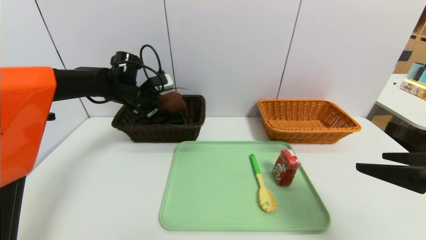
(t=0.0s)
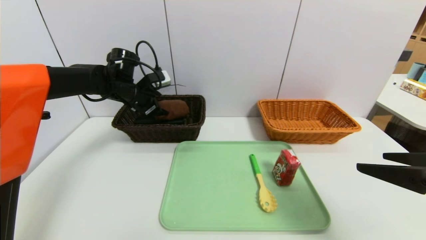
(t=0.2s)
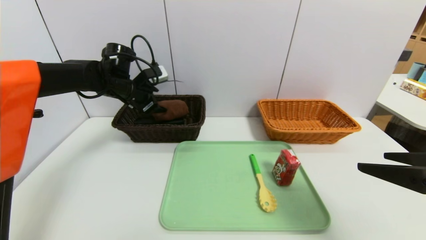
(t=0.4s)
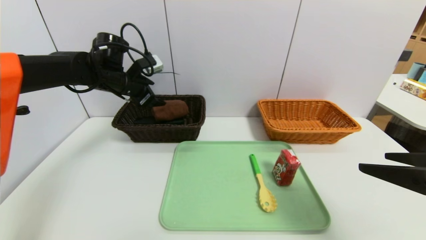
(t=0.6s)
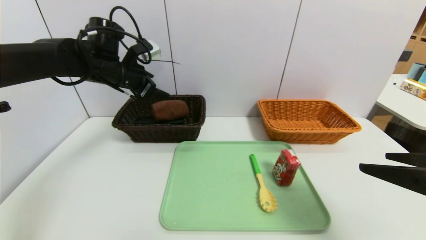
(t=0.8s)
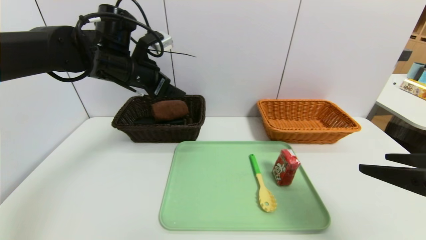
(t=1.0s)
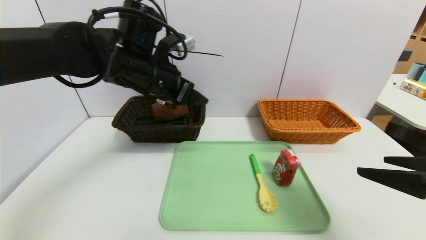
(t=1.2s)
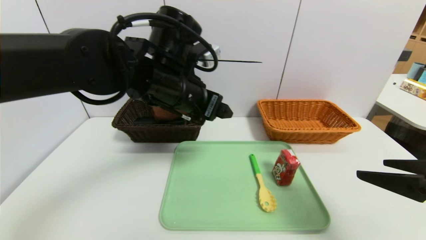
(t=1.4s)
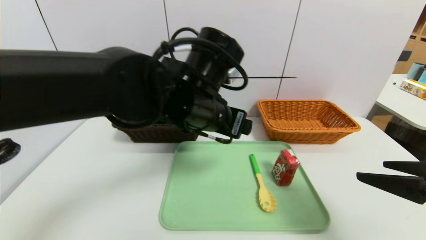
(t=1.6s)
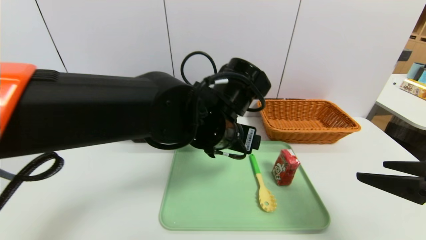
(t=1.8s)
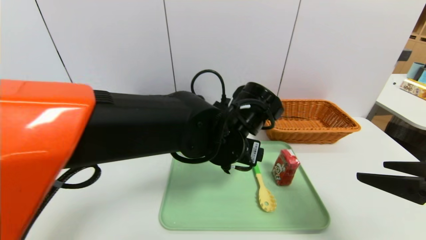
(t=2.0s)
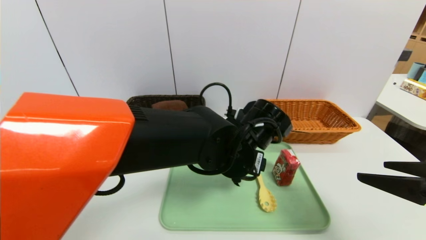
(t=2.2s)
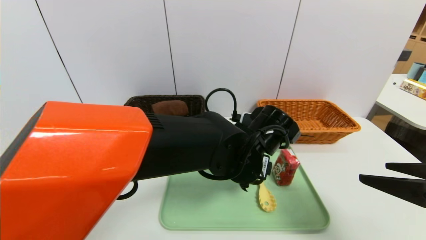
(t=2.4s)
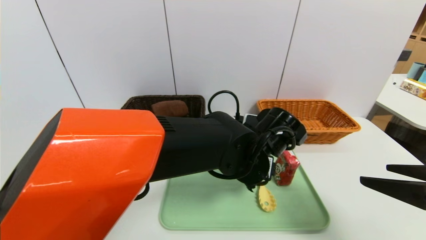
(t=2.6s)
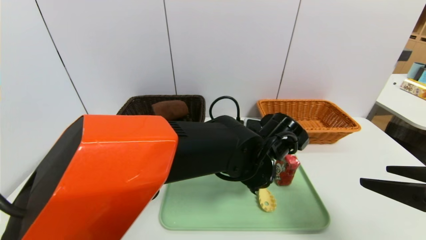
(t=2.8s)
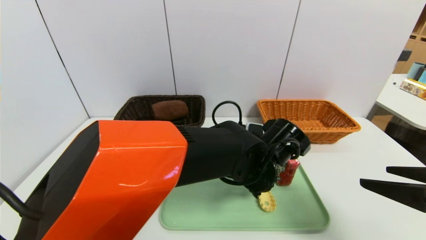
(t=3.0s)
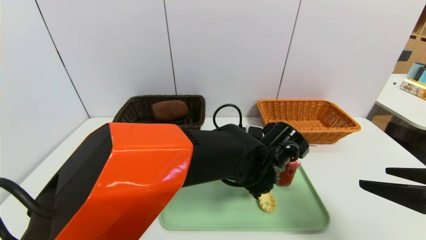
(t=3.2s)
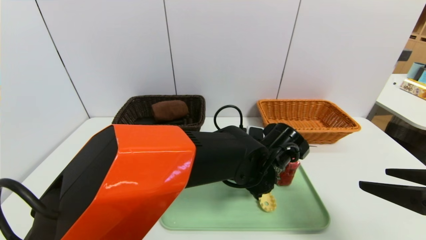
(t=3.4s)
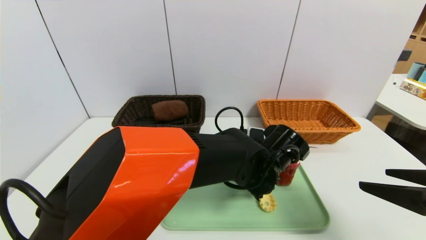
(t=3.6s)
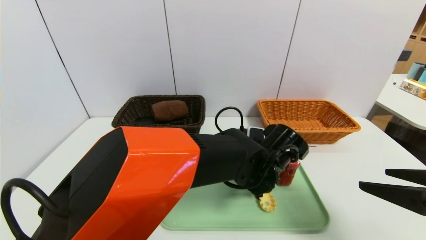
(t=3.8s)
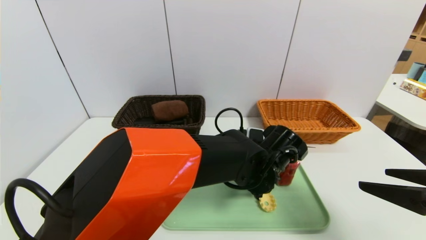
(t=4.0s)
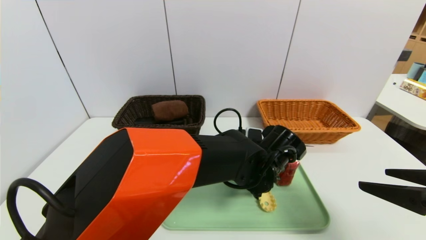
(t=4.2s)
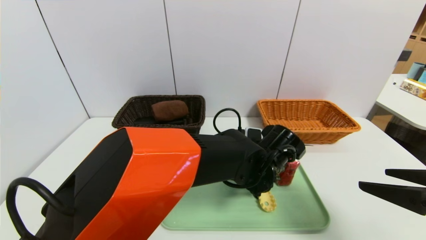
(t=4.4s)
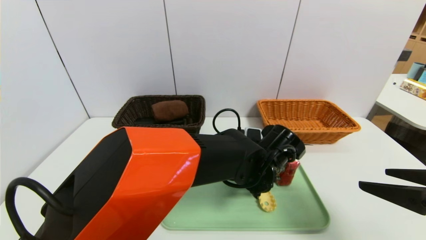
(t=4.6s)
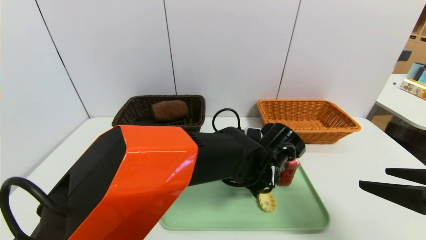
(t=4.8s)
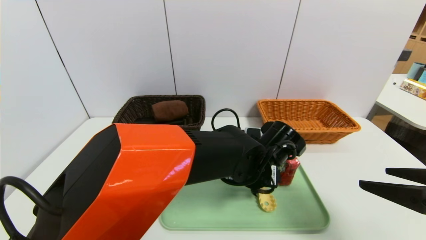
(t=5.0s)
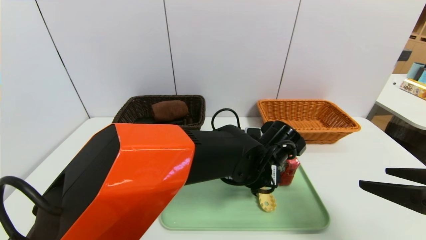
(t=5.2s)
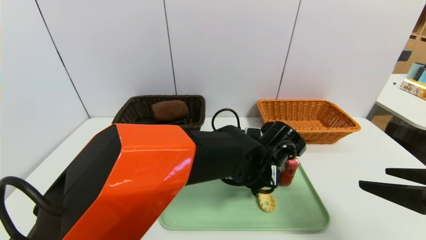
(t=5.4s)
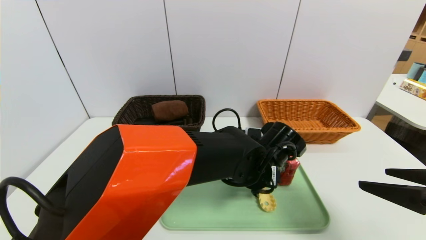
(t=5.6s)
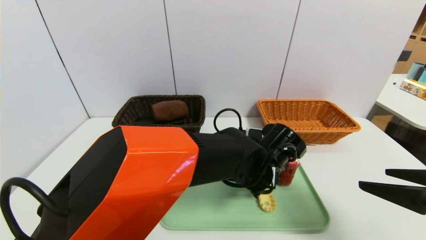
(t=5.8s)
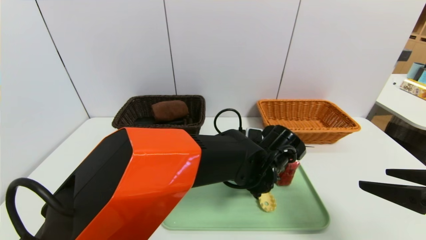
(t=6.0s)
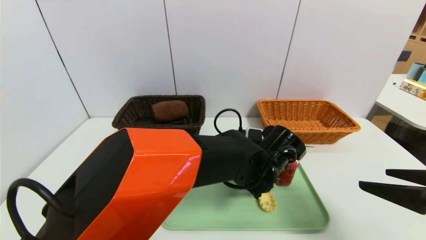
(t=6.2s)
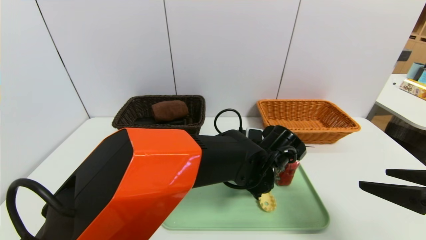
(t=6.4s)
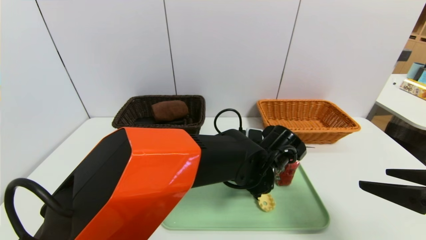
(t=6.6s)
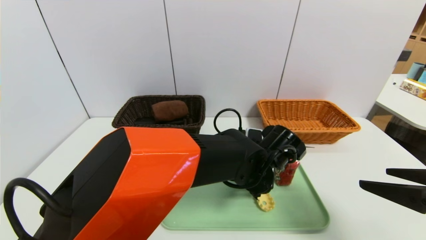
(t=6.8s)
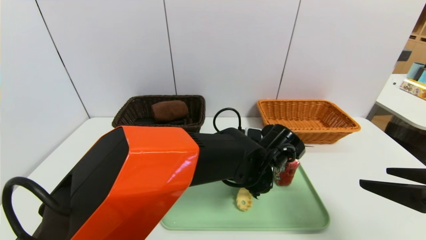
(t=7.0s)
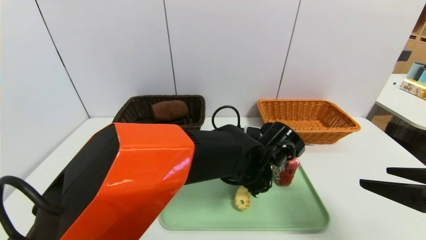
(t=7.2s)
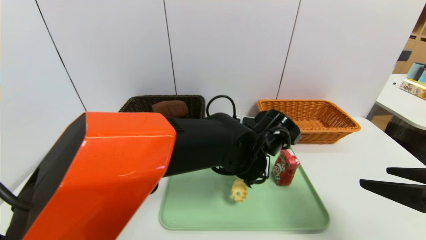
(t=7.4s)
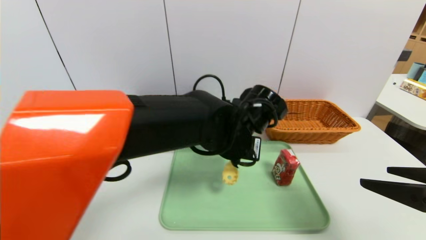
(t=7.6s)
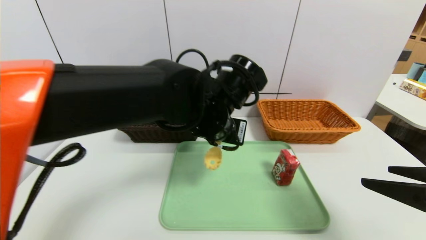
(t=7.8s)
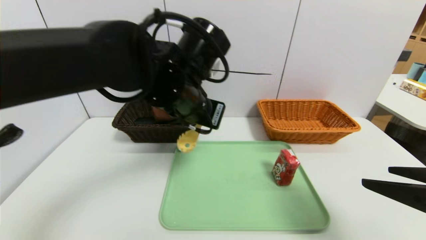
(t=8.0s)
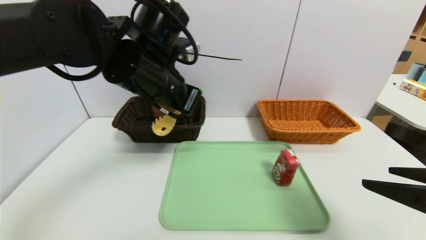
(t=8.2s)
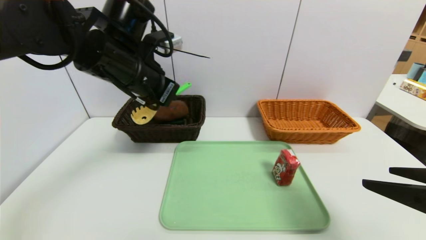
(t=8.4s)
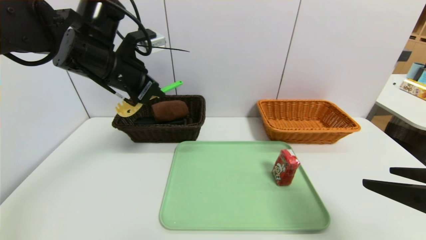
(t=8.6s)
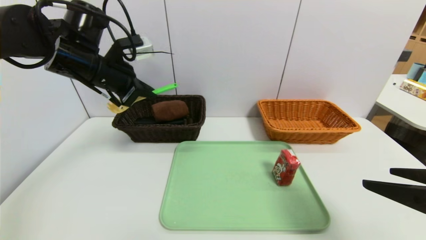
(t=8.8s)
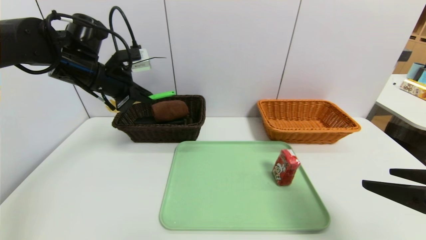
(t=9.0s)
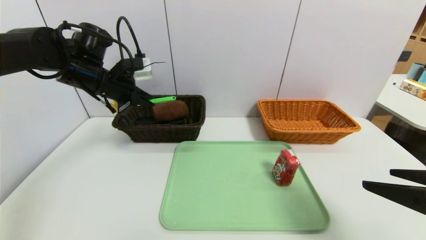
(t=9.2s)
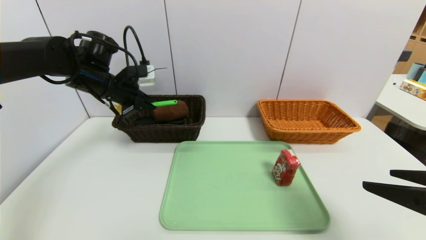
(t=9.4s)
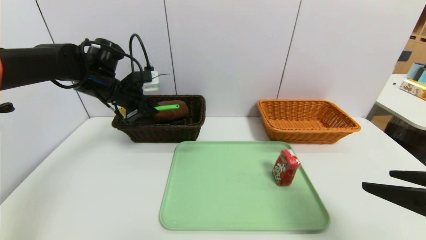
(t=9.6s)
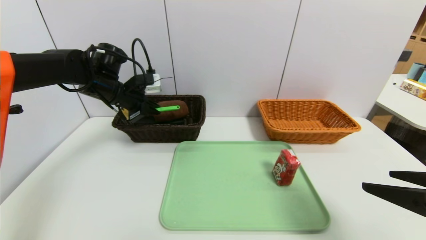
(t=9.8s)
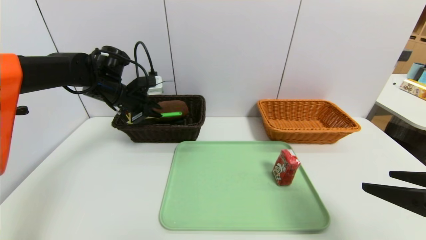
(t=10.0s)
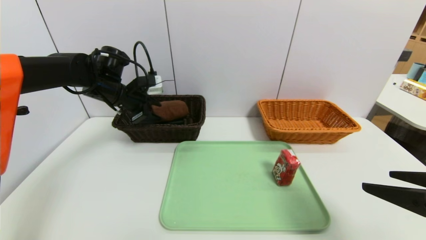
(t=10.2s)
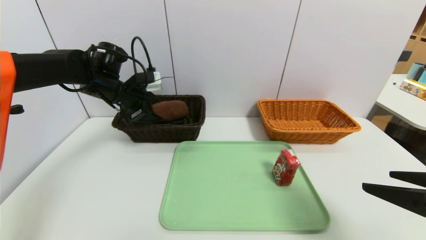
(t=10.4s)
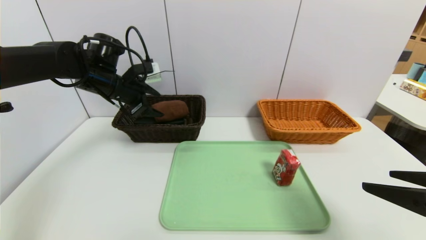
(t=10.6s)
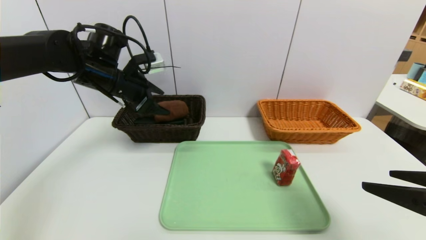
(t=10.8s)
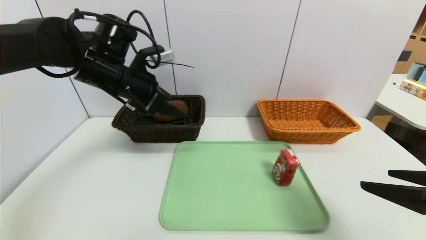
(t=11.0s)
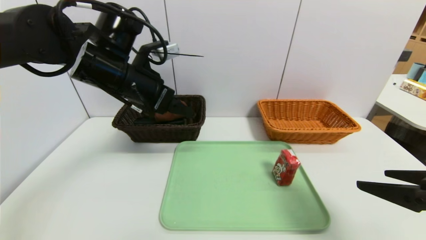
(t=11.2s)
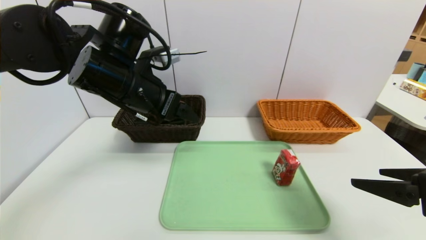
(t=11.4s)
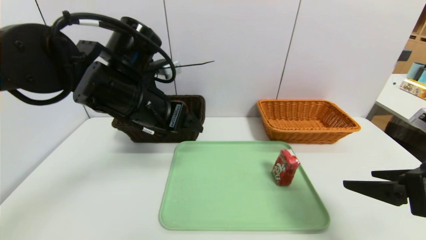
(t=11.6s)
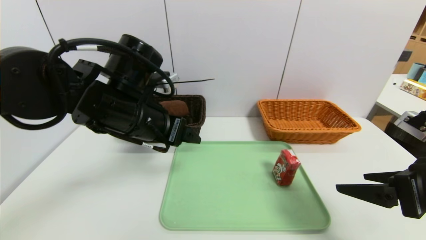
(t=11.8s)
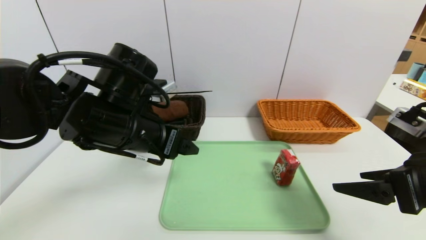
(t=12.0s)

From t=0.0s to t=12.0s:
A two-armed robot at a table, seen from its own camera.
Task of the whole recording: place the food in the right basket with the right gripper, and place the non food items in the left basket with the left gripper.
Step, from t=0.6s to t=10.6s: Grasp the back scratcher and put it in the left basket.
From t=0.0s to t=1.6s: The left gripper moves to the right and backward, some 25 cm.
From t=1.6s to t=3.0s: The left gripper shifts approximately 15 cm downward and to the right.
From t=3.0s to t=6.0s: The grippers make only small movements.
From t=6.0s to t=7.6s: The left gripper shifts about 5 cm upward, and closes up.
From t=7.6s to t=9.0s: The left gripper goes some 30 cm to the left.
From t=9.0s to t=10.4s: The left gripper travels downward and forward by some 5 cm, and opens its fingers.
From t=10.4s to t=12.0s: The left gripper is displaced backward and to the right by some 20 cm, and opens its fingers.

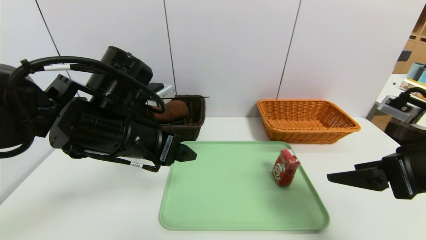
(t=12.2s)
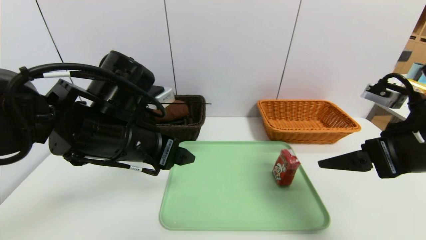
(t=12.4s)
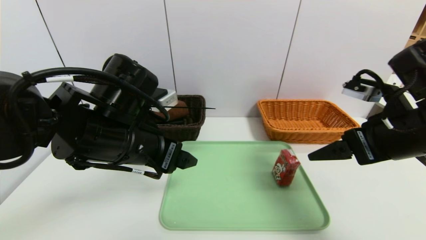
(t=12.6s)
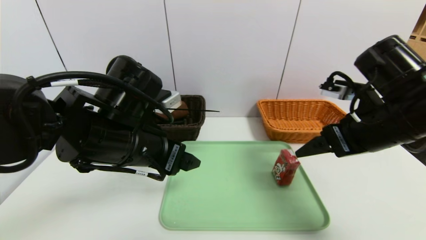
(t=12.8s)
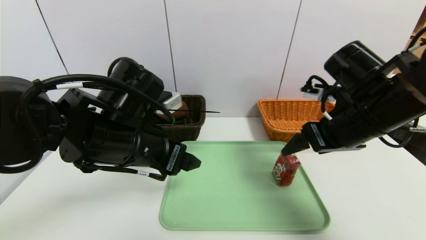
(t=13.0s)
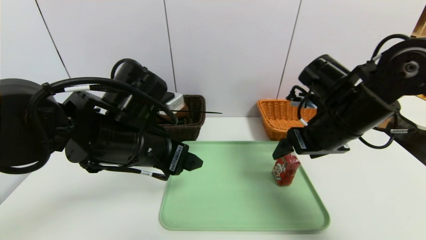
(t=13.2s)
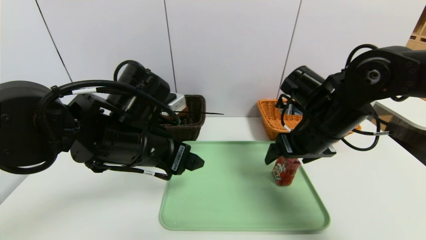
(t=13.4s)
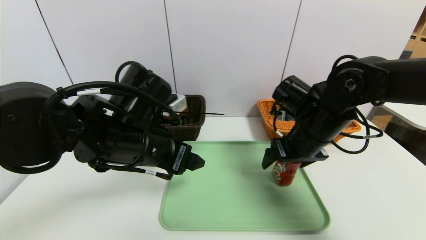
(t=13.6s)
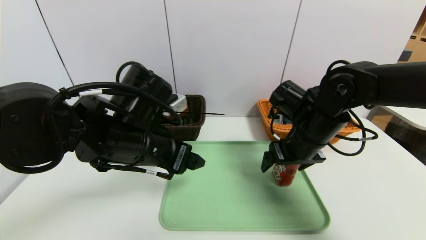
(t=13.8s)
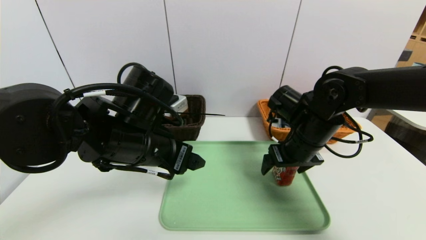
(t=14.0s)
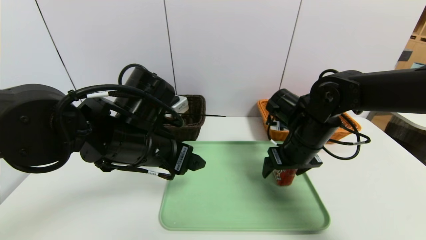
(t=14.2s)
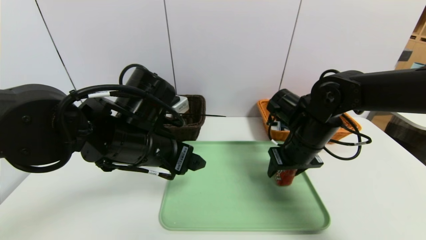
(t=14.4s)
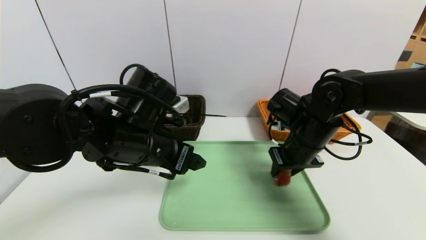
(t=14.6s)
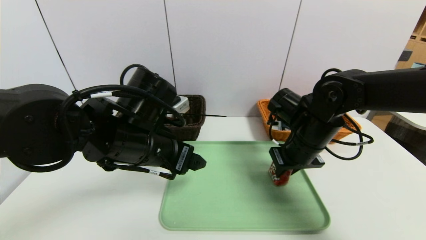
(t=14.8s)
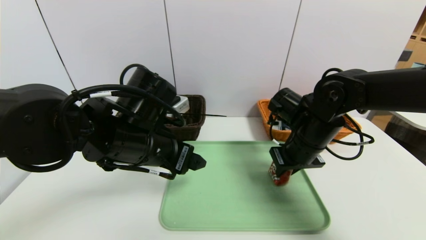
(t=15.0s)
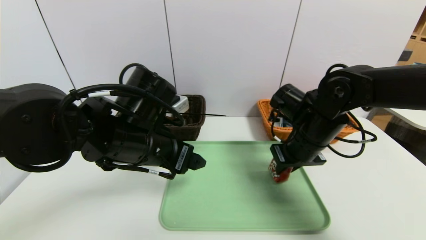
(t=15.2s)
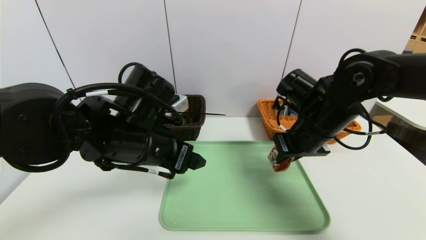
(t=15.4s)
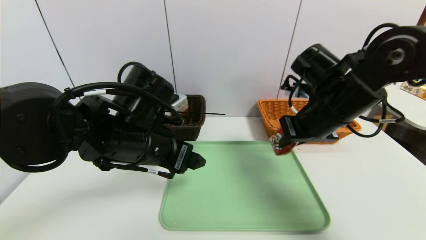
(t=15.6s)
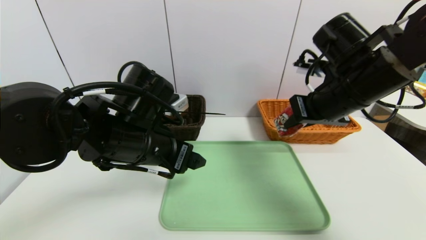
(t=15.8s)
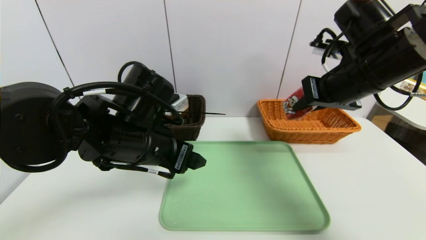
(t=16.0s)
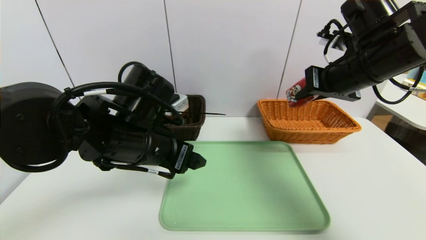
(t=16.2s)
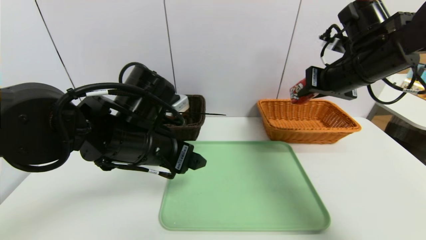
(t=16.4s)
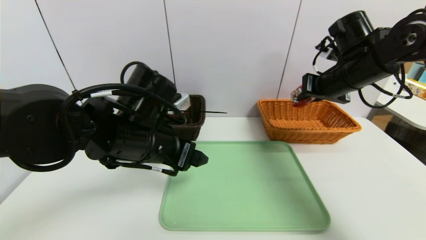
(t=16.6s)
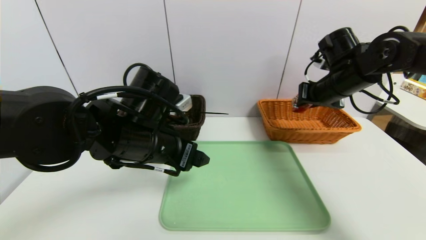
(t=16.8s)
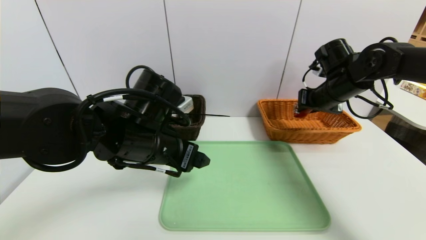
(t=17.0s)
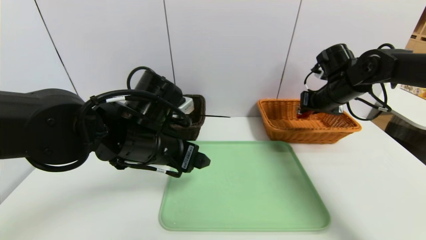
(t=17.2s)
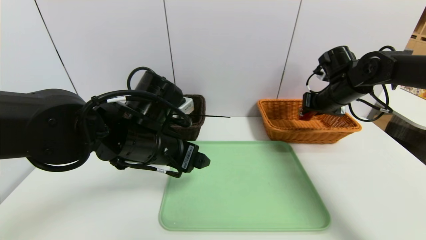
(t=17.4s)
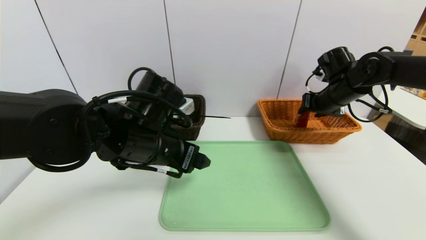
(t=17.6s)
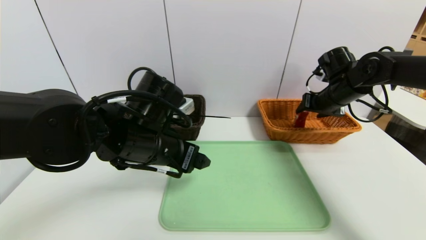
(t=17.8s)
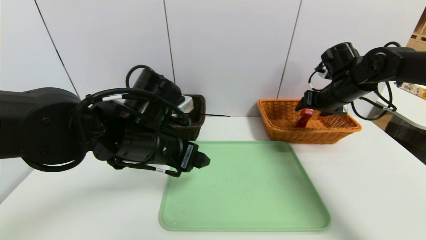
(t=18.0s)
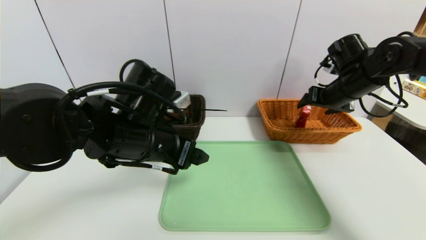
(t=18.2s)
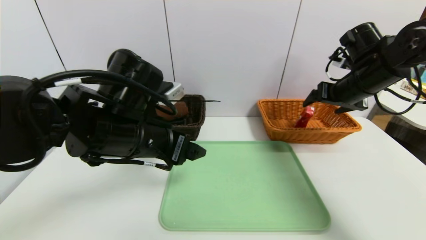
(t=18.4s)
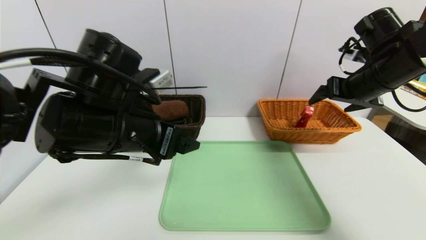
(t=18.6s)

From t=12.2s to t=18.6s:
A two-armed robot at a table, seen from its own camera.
Task of the whole recording: place the food in the right basket with the right gripper, and place the non food items in the left basket with the left gripper.
Step, from t=12.2s to t=18.0s: Grasp the milk and put it in the right basket.
From t=12.2s to t=13.8s: The right gripper moves forward and to the left, approximately 20 cm.
From t=13.8s to t=15.4s: The right gripper closes.
From t=15.4s to t=17.0s: The right gripper shifts some 15 cm forward and to the right.
From t=17.0s to t=18.6s: The right gripper moves backward and upward, roughly 10 cm, and opens. Meanwhile the left gripper moves upward, roughly 5 cm.
